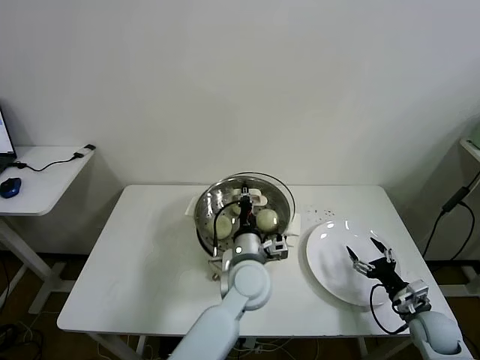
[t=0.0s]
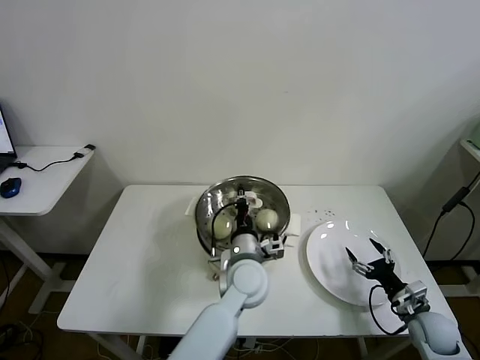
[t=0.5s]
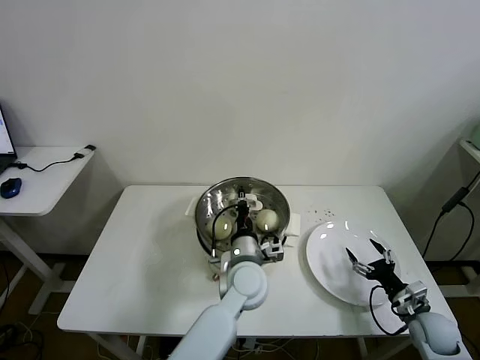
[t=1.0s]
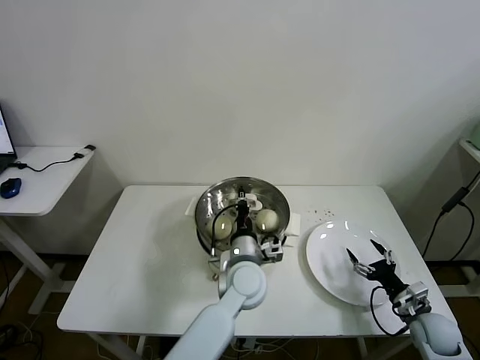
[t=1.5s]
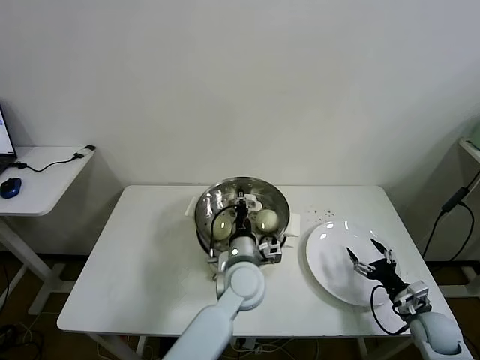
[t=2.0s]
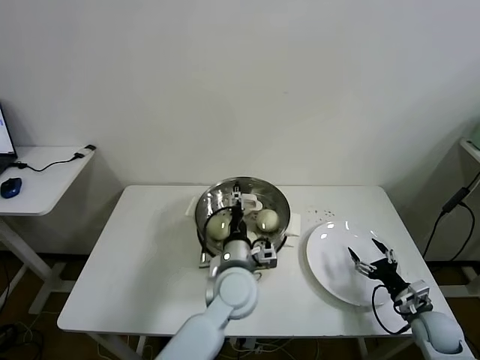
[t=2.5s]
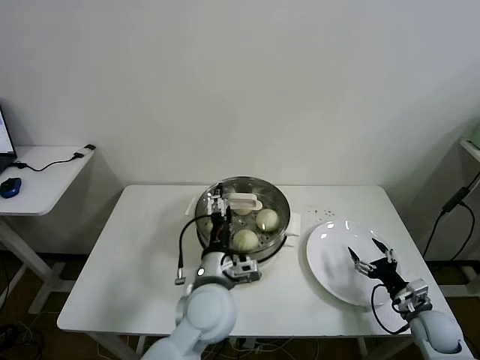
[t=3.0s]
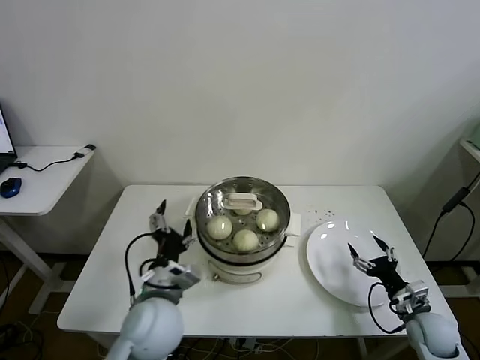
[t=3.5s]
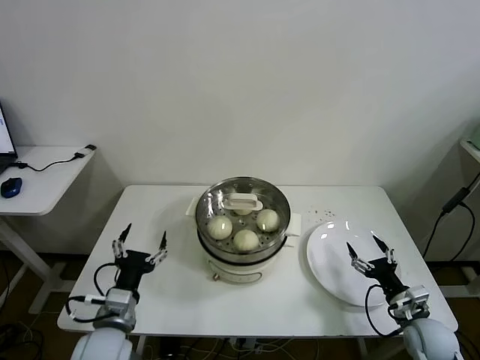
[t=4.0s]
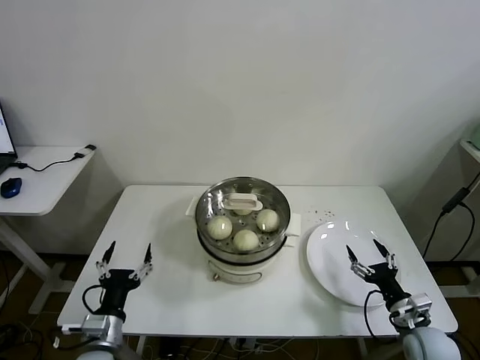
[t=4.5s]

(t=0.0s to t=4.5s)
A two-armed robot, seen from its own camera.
Task of the whole recording: take steamed baozi put them in steamer then cover it.
Step, t=0.0s - t=2.0s: Place the pot lid on the steamer with left gripper.
t=0.0s - t=2.0s: The grippers stay close to where they were, moving slightly.
t=2.0s - t=4.5s: The right gripper ends up some 5 cm from where it was; the left gripper travels to the left and backward by approximately 30 cm, and opens.

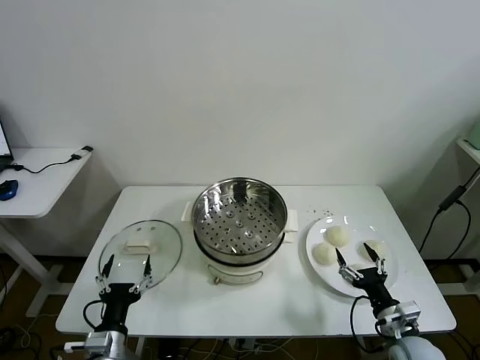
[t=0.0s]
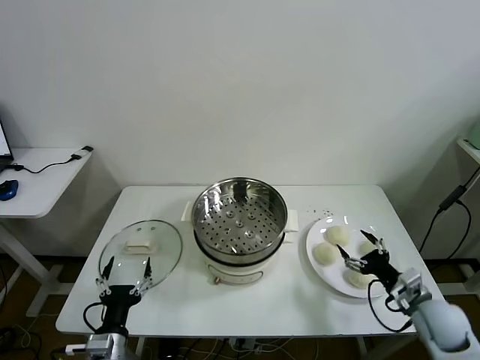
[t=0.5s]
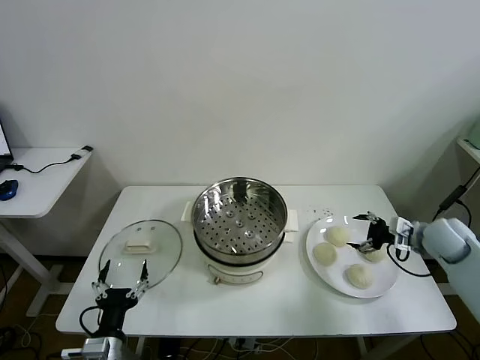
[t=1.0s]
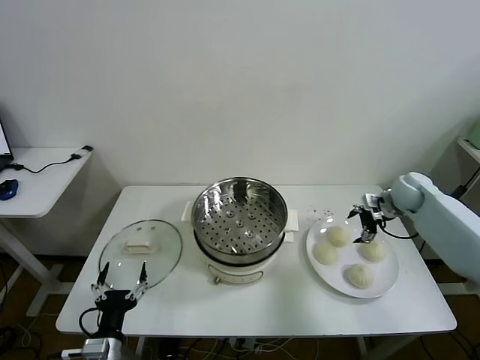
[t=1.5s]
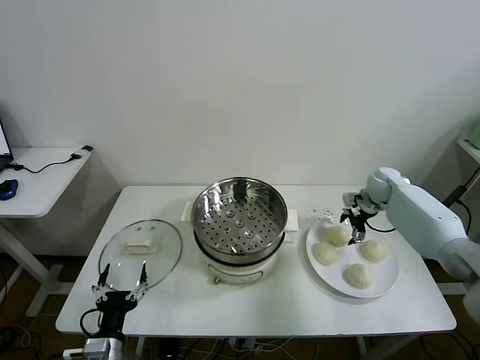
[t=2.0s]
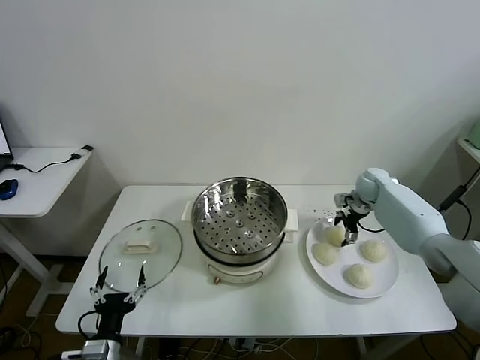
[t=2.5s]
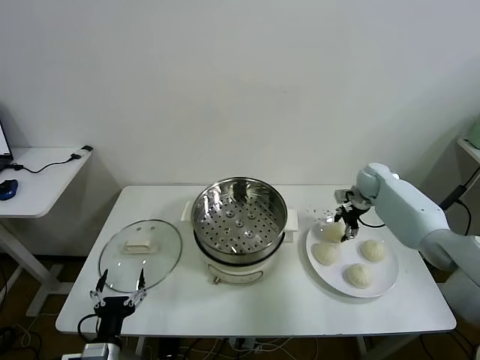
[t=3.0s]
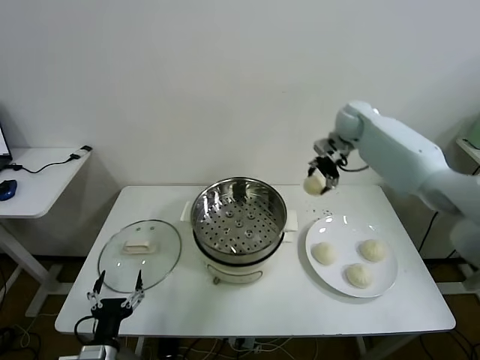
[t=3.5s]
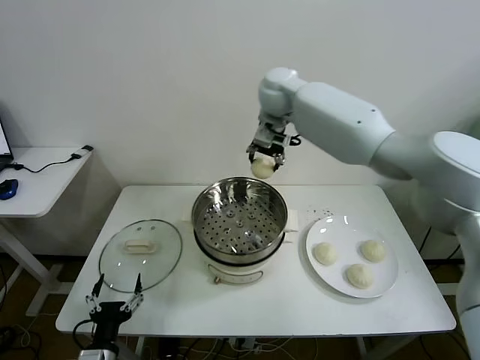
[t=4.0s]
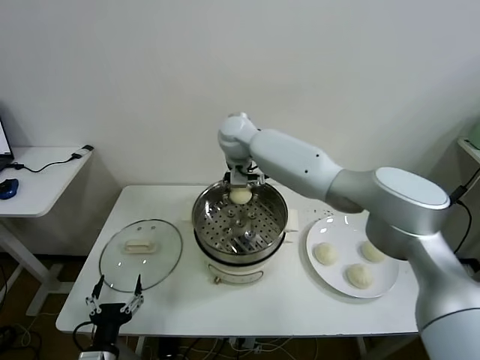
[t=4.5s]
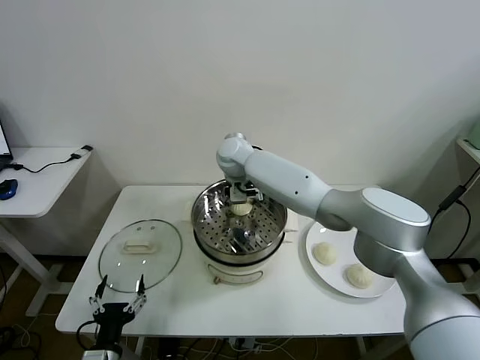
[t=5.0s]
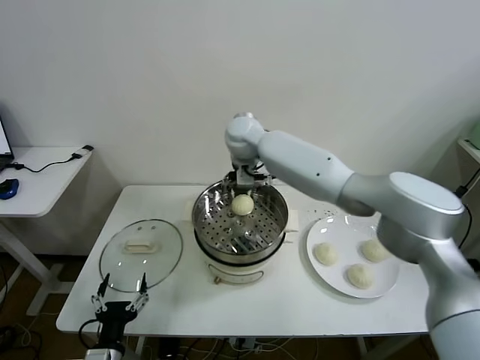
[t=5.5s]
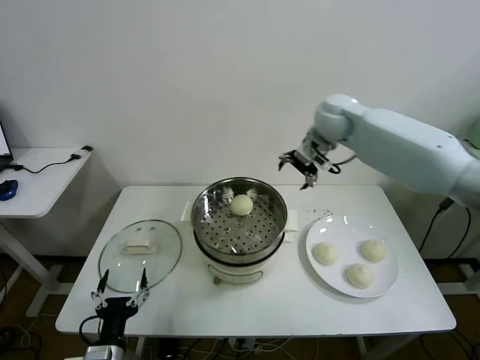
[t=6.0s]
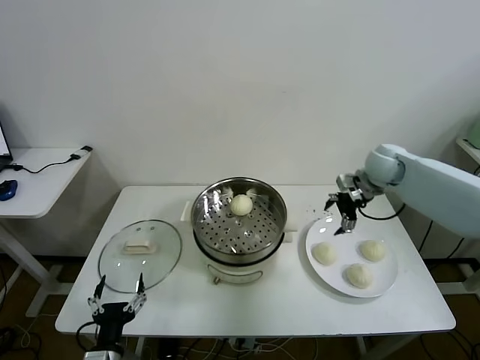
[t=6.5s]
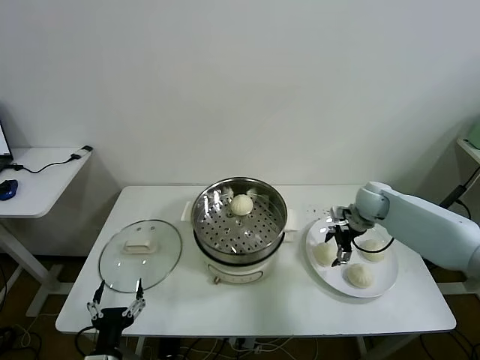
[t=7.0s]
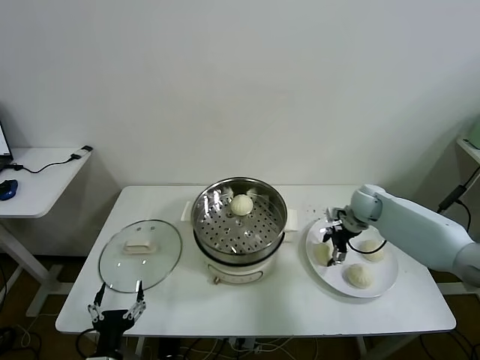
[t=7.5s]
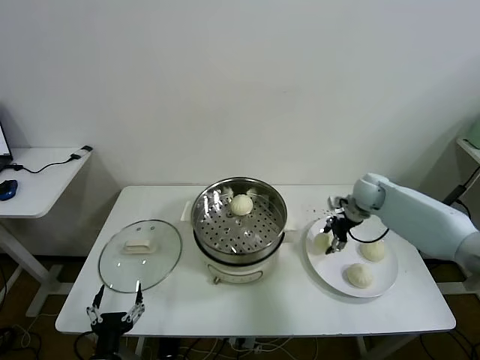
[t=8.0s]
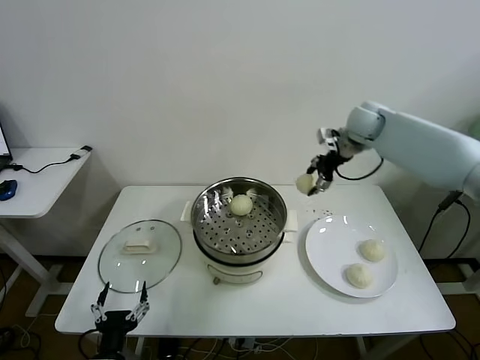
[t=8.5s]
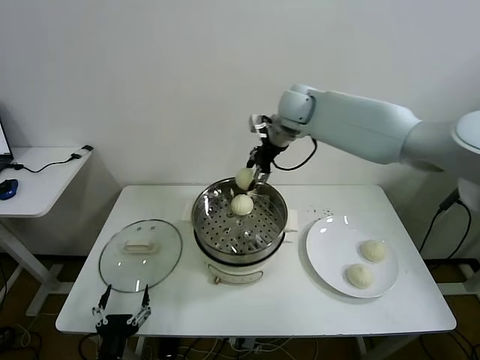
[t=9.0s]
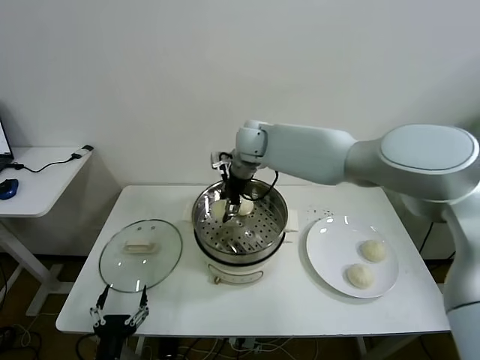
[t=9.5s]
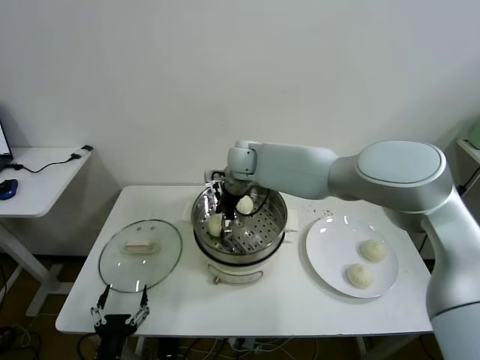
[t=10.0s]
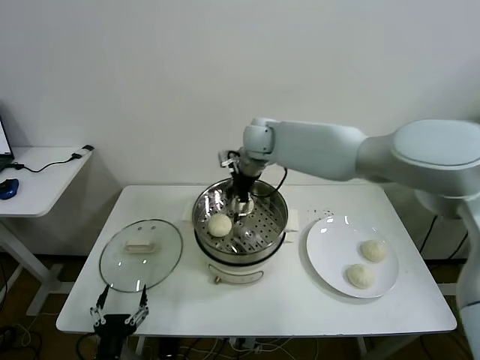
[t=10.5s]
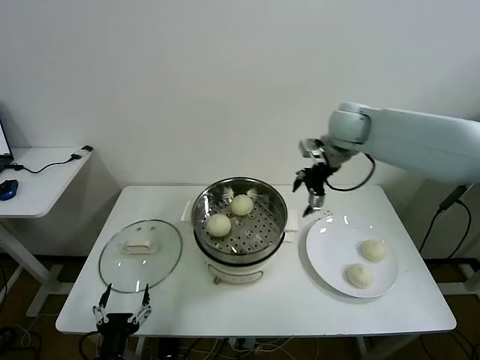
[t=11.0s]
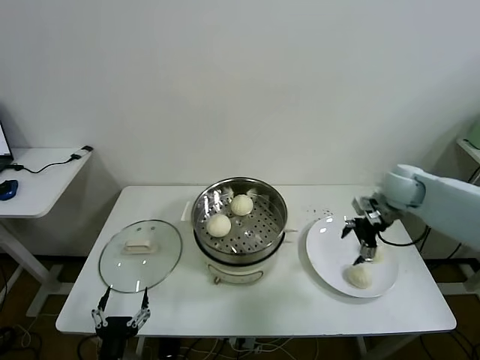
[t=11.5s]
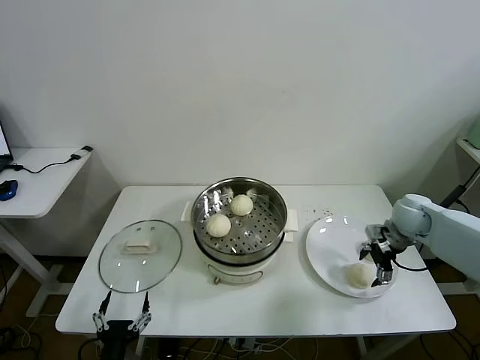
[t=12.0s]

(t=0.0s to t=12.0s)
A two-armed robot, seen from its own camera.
Task of the whole recording: take steamed baozi put them in steamer then cover it.
Step, t=0.0s - t=2.5s: Grasp the baozi in the plate with right gripper.
Step, t=3.0s - t=5.0s: Place the baozi on the steamer with right gripper.
Step, t=5.5s - t=7.5s: Grasp the baozi in the plate with right gripper.
Step, t=8.0s - t=10.0s: Place the baozi on the steamer with right gripper.
t=2.0s - t=4.0s: The right gripper goes about 40 cm to the left and upward, and closes.
t=4.0s - t=6.0s: The right gripper travels to the right by some 20 cm, and opens its fingers.
t=6.0s - t=8.0s: The right gripper is displaced downward and to the right by about 20 cm, and closes.
t=8.0s - t=10.0s: The right gripper moves to the left, approximately 35 cm, and opens its fingers.
t=10.0s - t=12.0s: The right gripper moves to the right, roughly 40 cm.

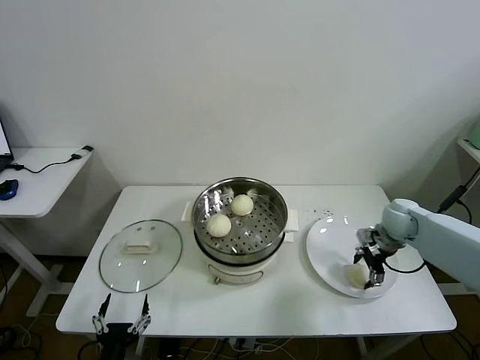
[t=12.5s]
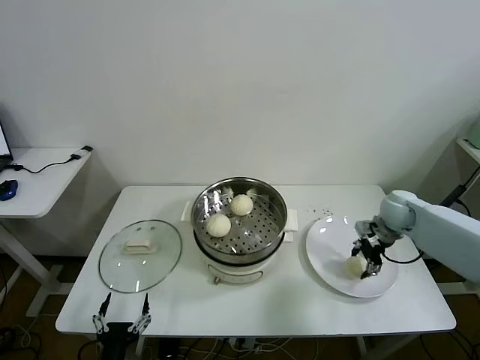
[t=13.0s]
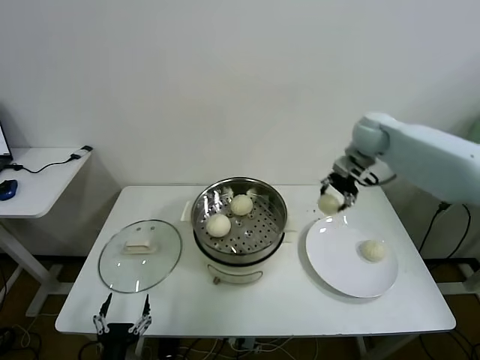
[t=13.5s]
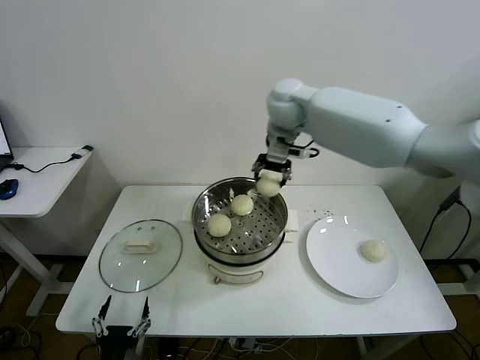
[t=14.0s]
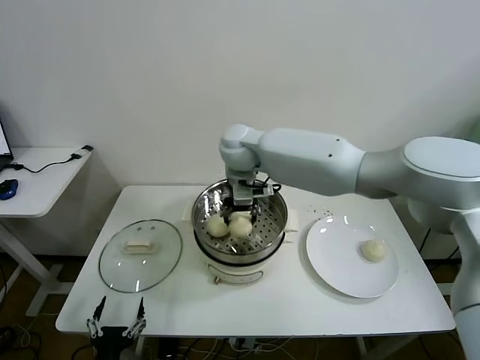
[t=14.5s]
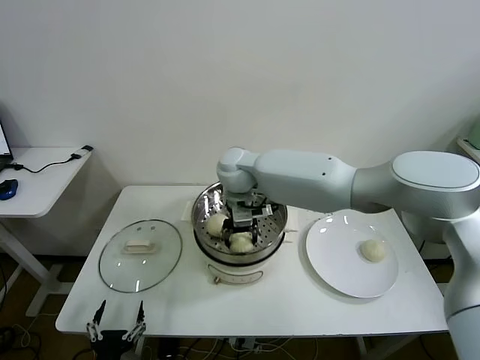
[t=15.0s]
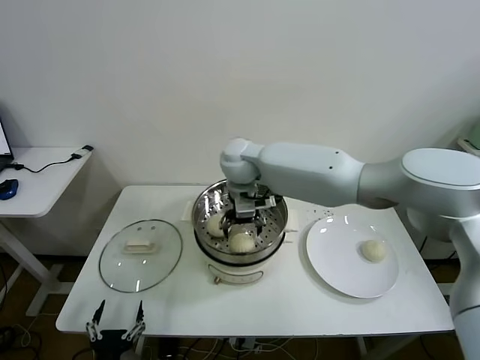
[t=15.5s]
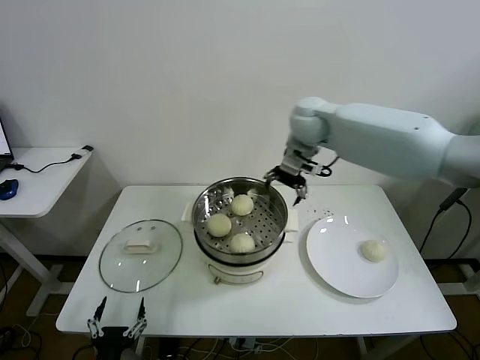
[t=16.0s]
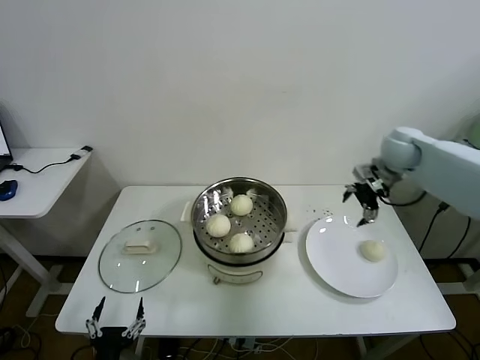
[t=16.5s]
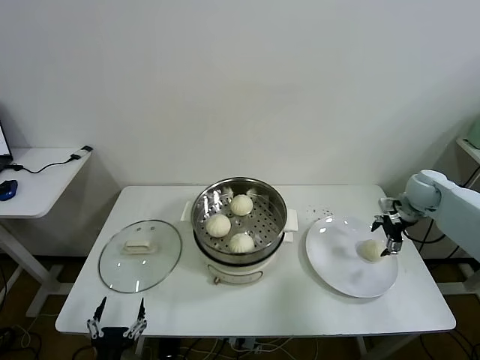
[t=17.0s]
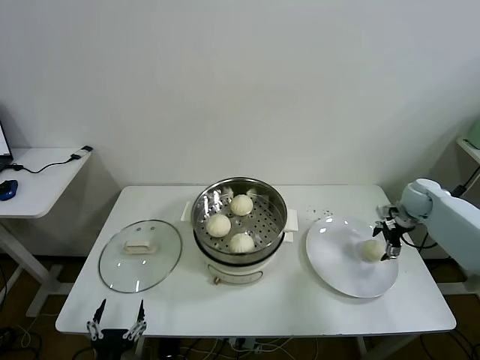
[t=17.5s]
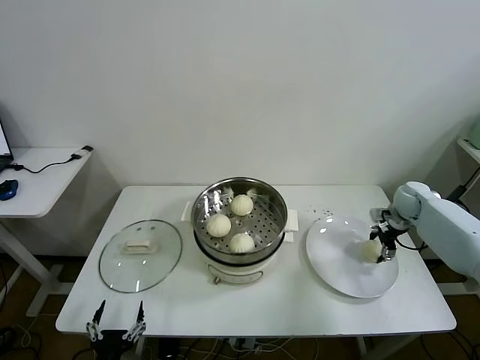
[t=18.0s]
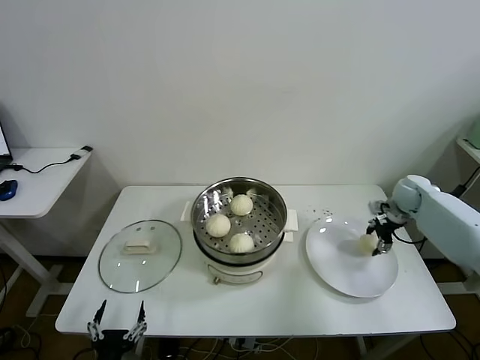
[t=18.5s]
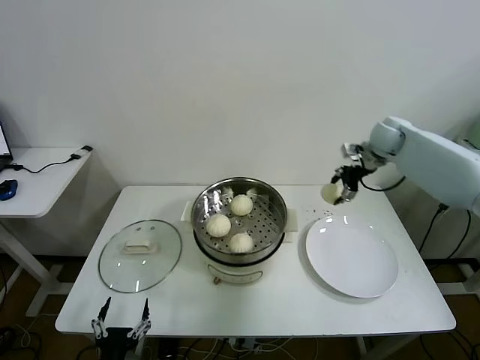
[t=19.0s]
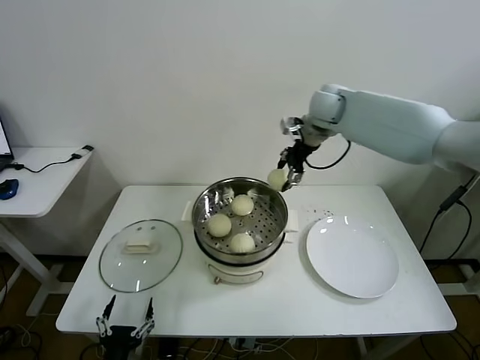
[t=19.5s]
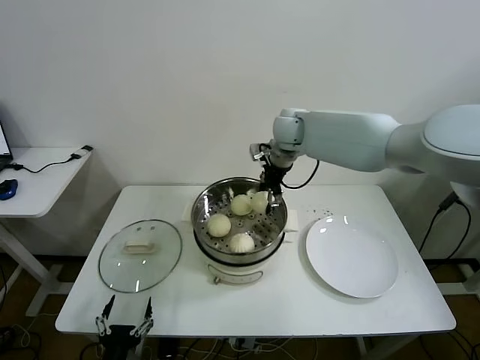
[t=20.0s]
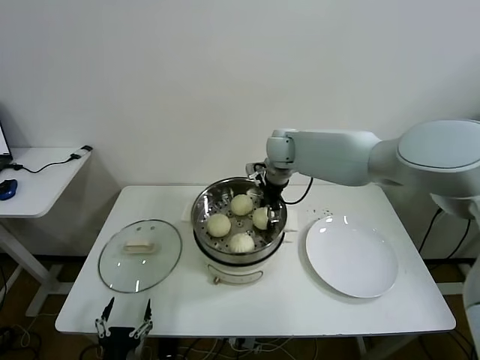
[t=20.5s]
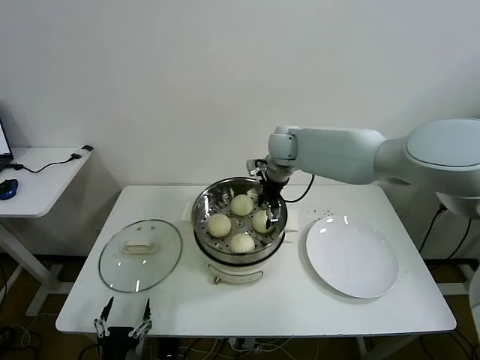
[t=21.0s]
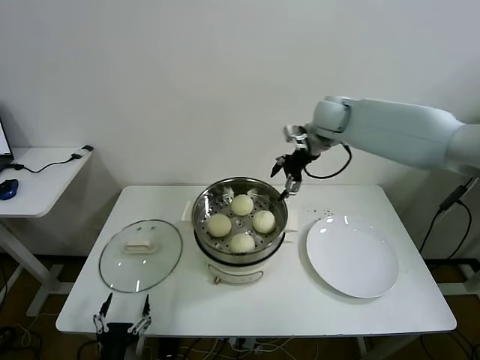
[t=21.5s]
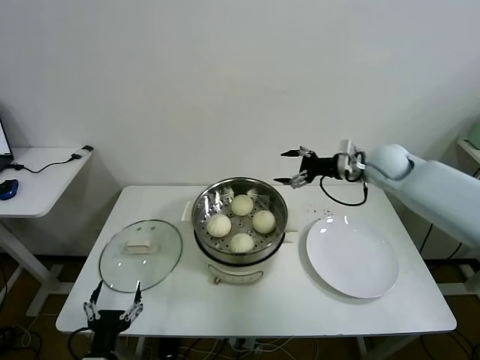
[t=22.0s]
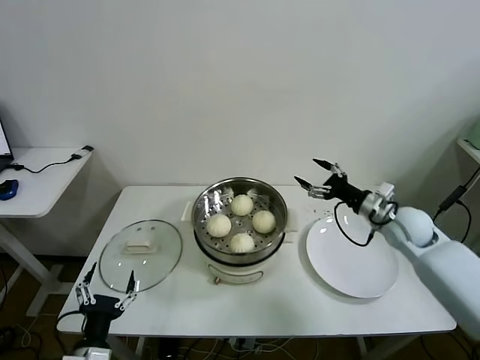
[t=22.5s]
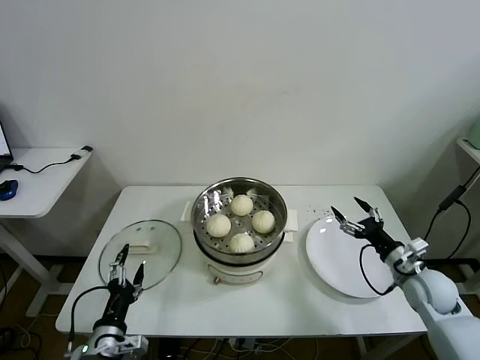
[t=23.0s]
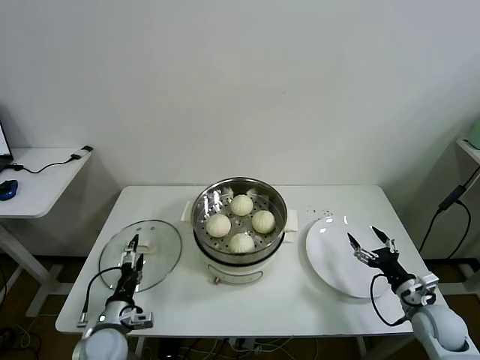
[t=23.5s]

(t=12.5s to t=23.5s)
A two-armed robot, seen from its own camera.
Task of the whole recording: take steamed baozi put them in steamer then cover it.
Step, t=13.0s - t=15.0s: Place the baozi on the steamer with right gripper.
Step, t=15.5s - t=18.0s: Grasp the baozi in the plate with right gripper.
Step, t=18.5s - t=21.0s: Place the baozi on the steamer with right gripper.
t=12.5s - t=14.5s: The right gripper heads to the left and upward, covering roughly 40 cm, and closes its fingers.
t=14.5s - t=16.0s: The right gripper heads to the right, covering roughly 15 cm, and opens its fingers.
t=16.0s - t=18.0s: The right gripper goes about 40 cm to the right and downward, and closes up.
t=18.0s - t=20.0s: The right gripper is displaced to the left and upward by about 40 cm.
t=20.0s - t=21.5s: The right gripper goes roughly 10 cm to the right, and opens.
t=21.5s - t=23.5s: The left gripper heads forward, covering roughly 15 cm, while the right gripper goes roughly 50 cm downward, backward and to the right.
